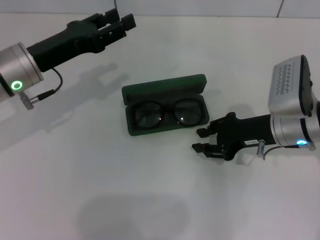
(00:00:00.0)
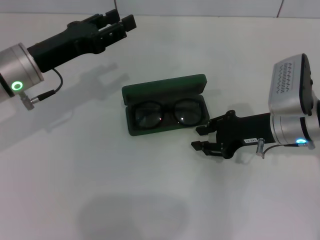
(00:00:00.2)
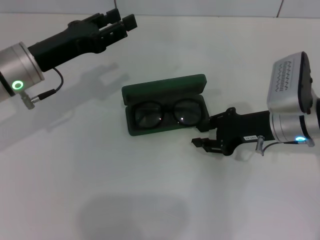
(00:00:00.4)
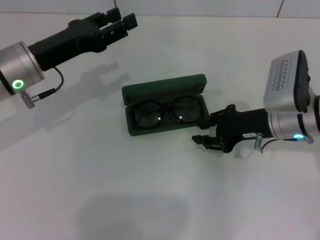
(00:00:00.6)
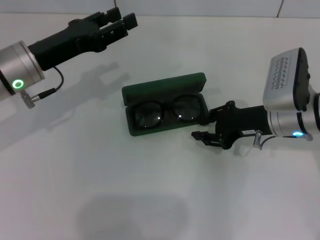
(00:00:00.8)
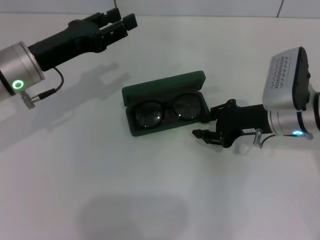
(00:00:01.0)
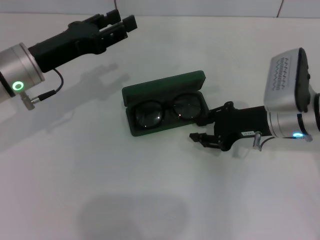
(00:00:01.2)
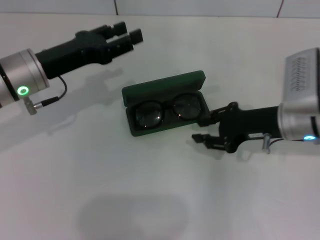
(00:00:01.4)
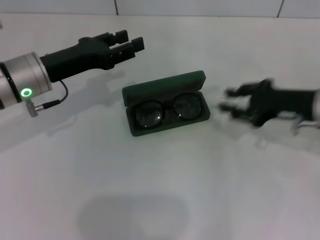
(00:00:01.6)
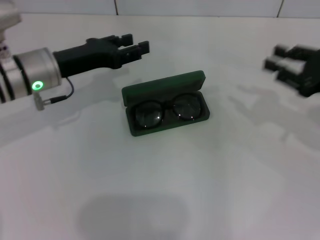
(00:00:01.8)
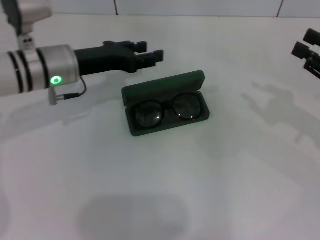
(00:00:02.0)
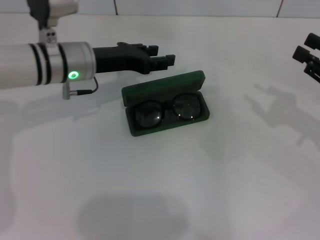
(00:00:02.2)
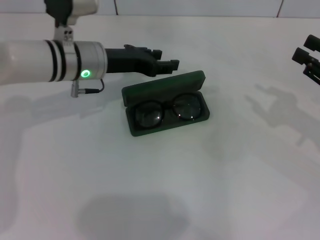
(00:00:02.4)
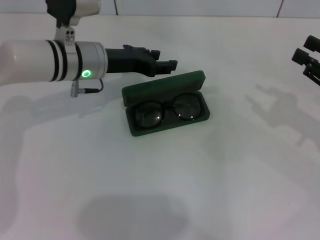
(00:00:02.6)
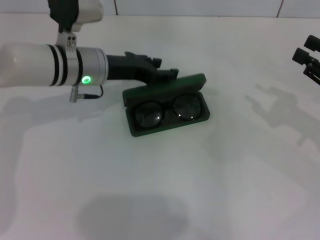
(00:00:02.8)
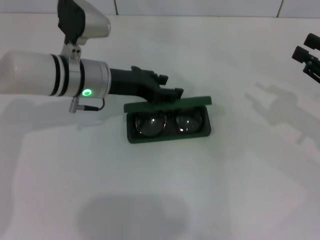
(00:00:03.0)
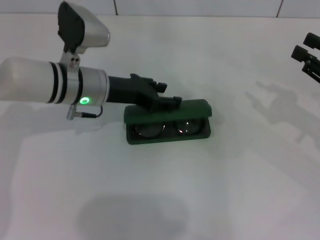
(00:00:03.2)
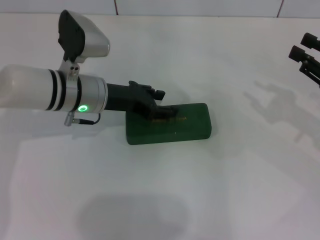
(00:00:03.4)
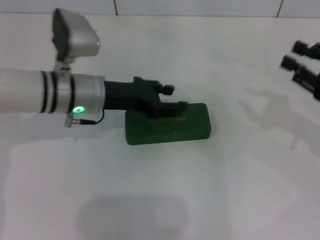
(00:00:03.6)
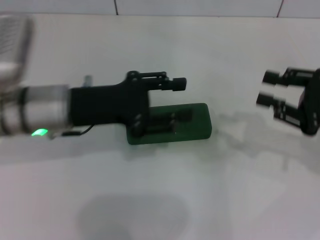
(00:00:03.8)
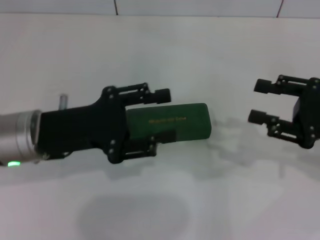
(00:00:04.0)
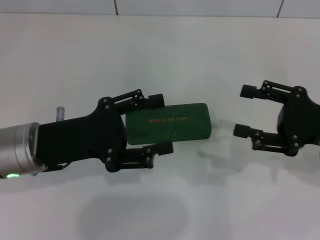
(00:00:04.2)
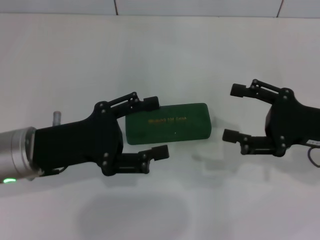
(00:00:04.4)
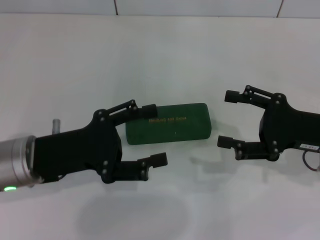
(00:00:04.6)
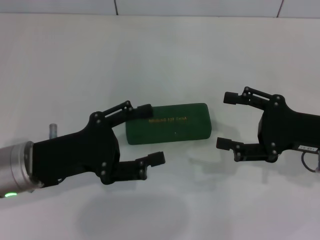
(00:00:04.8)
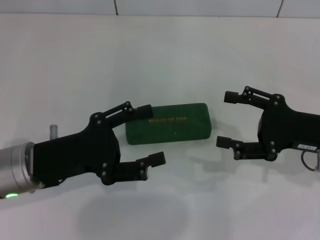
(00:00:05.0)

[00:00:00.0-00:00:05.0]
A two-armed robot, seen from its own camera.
Step, 00:00:00.0 to 00:00:03.2: Close the glasses case with your left hand.
00:00:00.0 to 00:00:01.6: The right gripper travels to the right by roughly 5 cm.
00:00:01.6 to 00:00:03.4: The grippers both shift to the right by some 10 cm.
00:00:03.4 to 00:00:05.0: The left gripper moves backward and to the left, about 15 cm, and opens. The right gripper travels to the left by about 5 cm, and opens.
